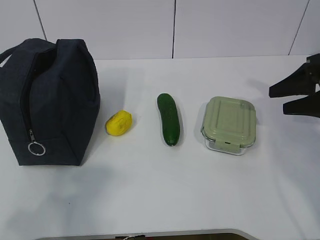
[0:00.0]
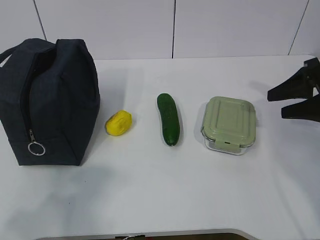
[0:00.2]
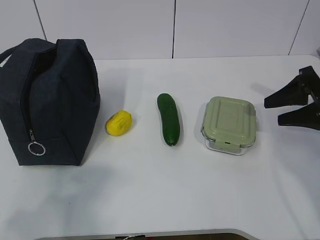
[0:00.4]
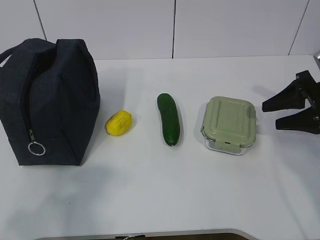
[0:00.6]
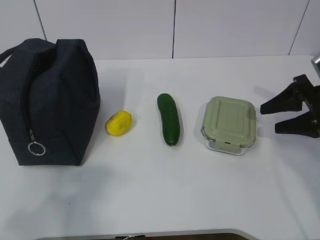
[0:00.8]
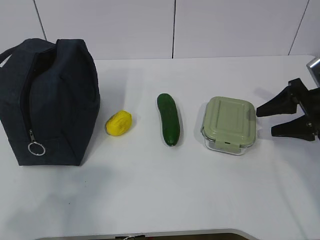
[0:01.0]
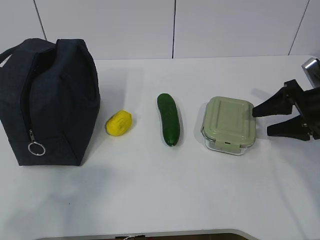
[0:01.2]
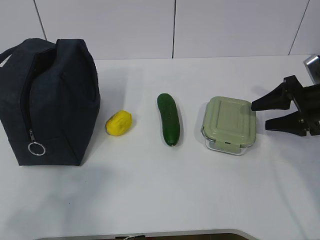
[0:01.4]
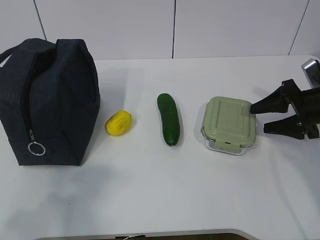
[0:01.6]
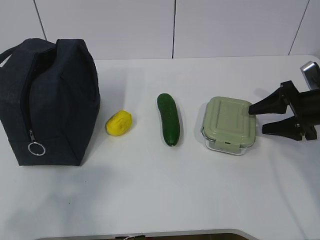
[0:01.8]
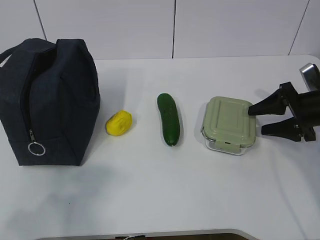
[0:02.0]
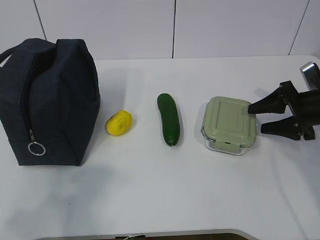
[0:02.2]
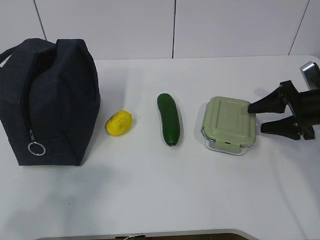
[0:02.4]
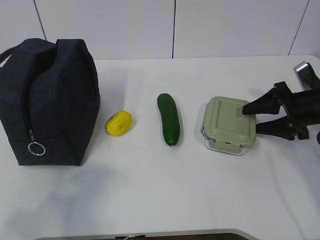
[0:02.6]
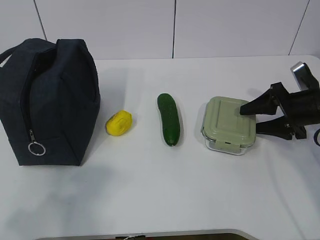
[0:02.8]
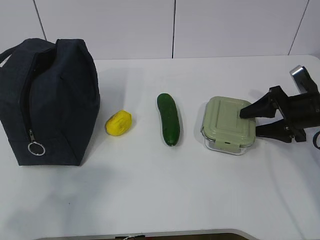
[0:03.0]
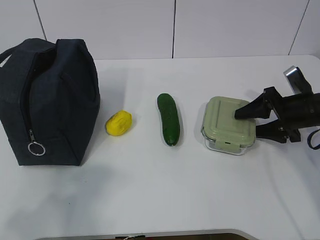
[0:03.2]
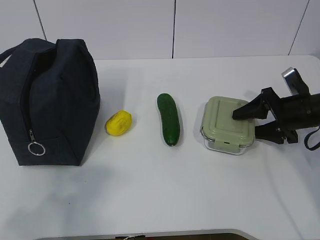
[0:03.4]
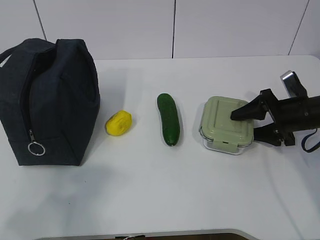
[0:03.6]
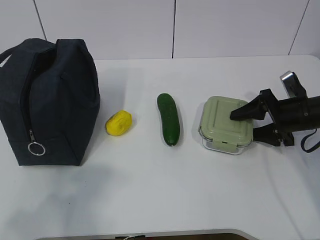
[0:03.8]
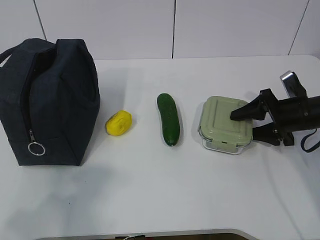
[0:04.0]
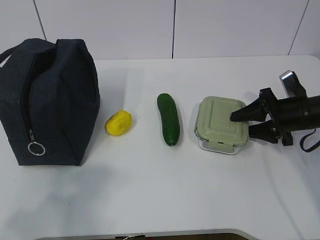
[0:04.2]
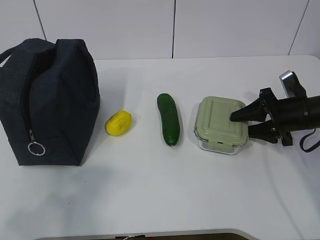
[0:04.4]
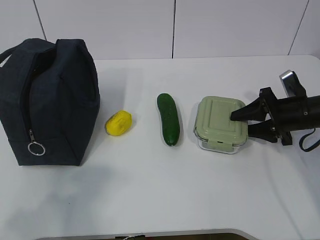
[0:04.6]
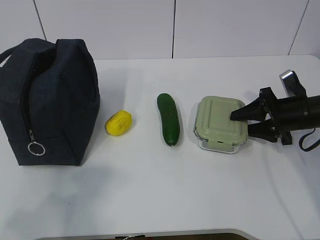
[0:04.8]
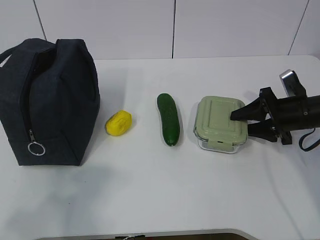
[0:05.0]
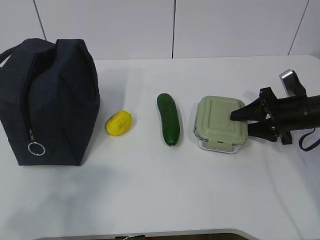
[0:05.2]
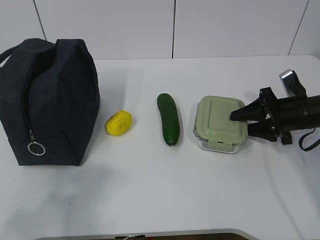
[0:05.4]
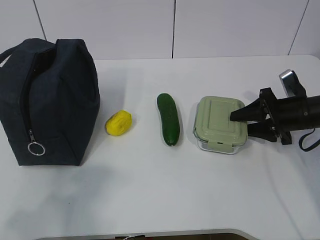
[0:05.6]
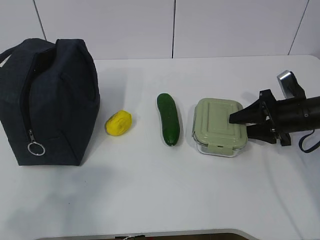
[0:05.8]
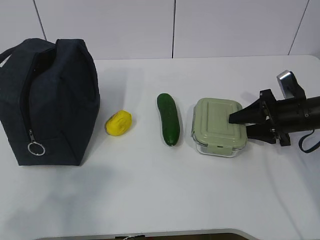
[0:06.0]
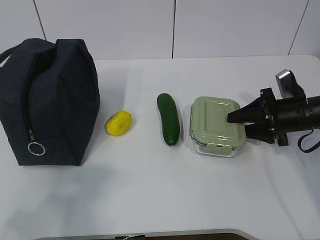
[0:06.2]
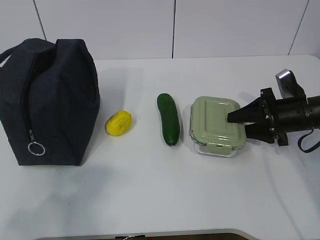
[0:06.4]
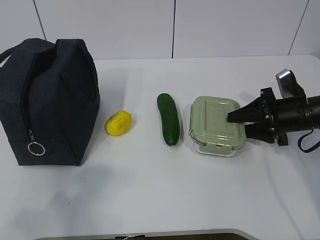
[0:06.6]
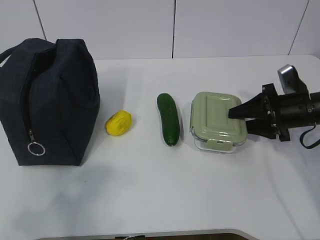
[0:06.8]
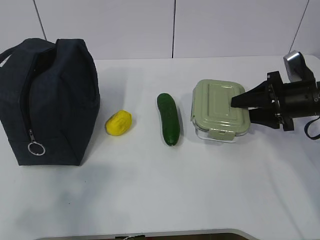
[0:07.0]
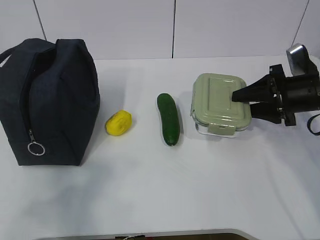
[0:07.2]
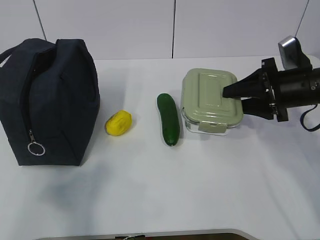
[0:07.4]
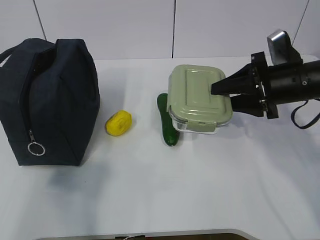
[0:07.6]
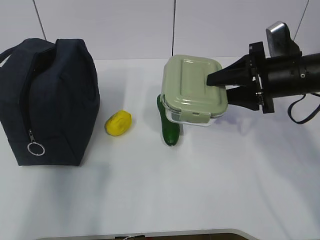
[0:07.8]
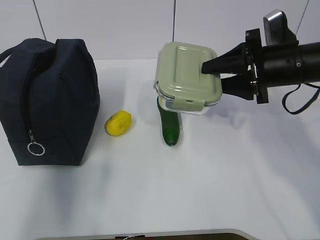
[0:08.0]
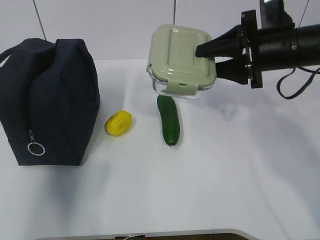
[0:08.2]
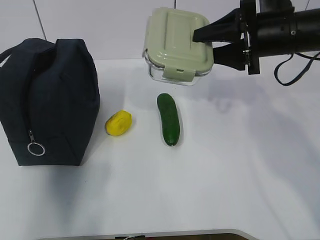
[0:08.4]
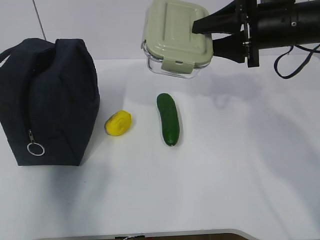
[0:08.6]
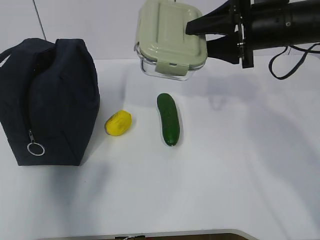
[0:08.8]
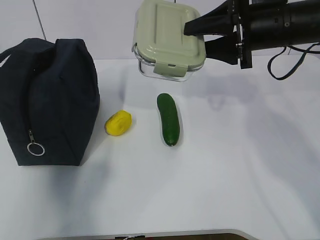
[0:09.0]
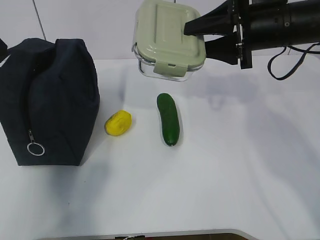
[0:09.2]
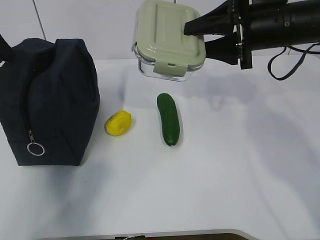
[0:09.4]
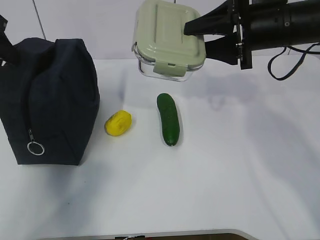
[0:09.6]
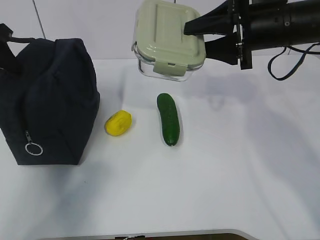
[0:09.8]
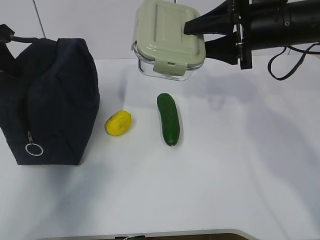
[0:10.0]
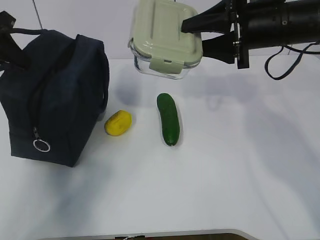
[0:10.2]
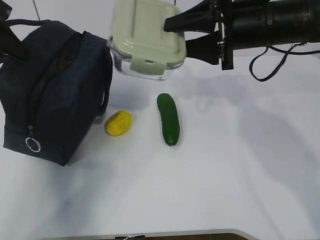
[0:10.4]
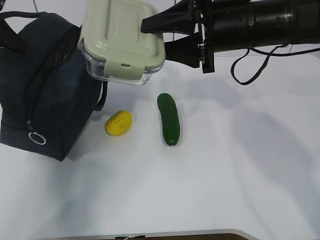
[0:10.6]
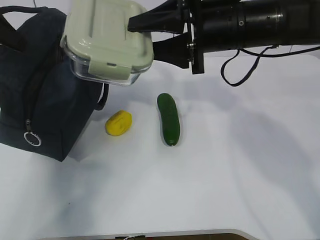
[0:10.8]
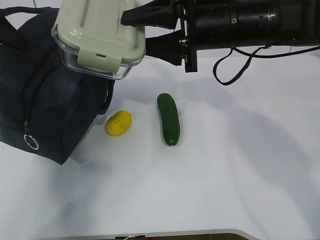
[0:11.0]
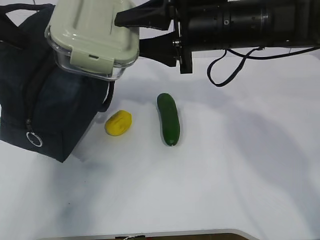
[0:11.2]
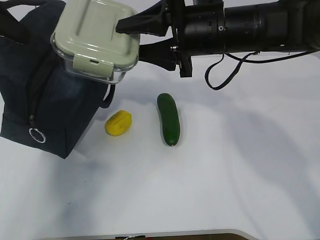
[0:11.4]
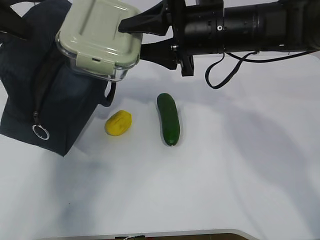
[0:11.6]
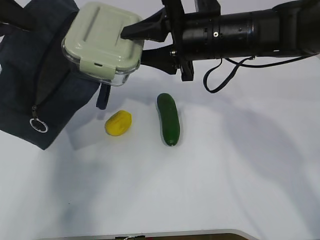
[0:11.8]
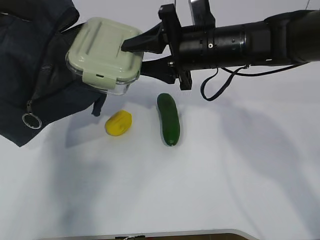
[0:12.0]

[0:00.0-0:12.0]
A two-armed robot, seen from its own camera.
Step, 0:00.0 to 0:04.0: Grab the lunch box with your right hand.
Step, 0:04.2 to 0:08.8: Grab the lunch bag with your left hand.
0:00.0 to 0:01.6: The right gripper goes about 5 cm downward.
0:01.6 to 0:04.4: The grippers make only small movements.
0:04.4 to 0:06.0: Both grippers stay about where they are.
0:06.0 to 0:07.6: The right gripper is displaced upward by about 10 cm, while the left gripper shifts about 5 cm forward.
0:07.6 to 0:09.0: The right gripper heads upward and to the left, covering some 10 cm; the left gripper goes roughly 25 cm forward.
0:09.0 to 0:10.4: The left gripper moves forward, some 5 cm, and closes up.
0:10.4 to 0:12.0: The left gripper is displaced upward by approximately 5 cm; the right gripper travels to the left by roughly 5 cm.

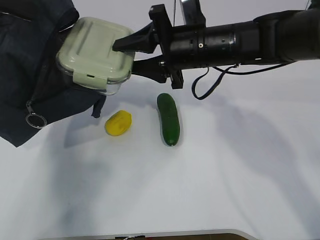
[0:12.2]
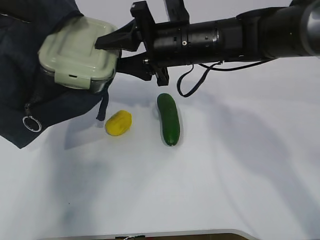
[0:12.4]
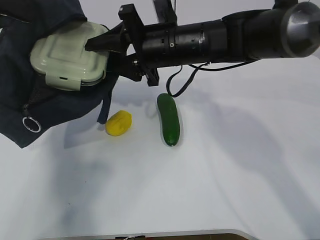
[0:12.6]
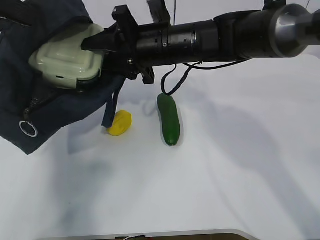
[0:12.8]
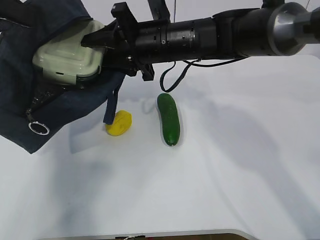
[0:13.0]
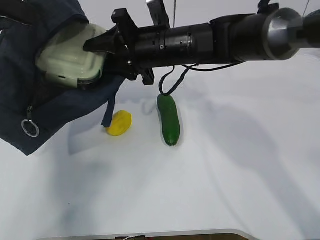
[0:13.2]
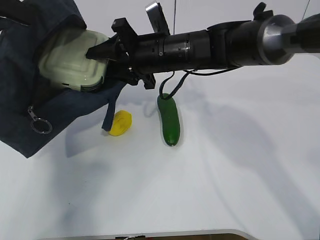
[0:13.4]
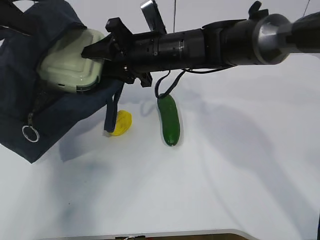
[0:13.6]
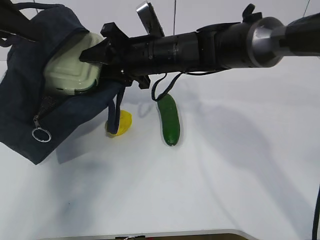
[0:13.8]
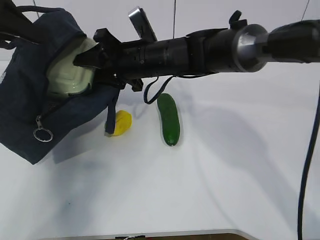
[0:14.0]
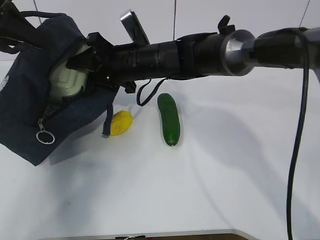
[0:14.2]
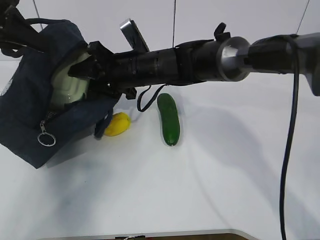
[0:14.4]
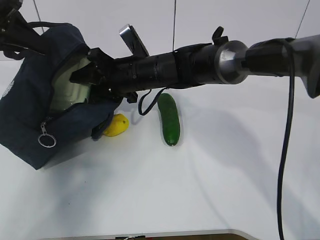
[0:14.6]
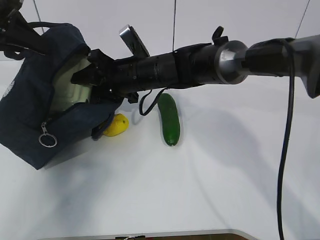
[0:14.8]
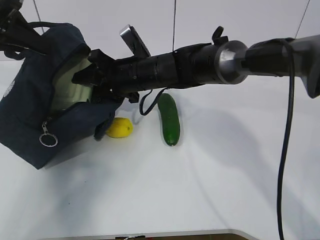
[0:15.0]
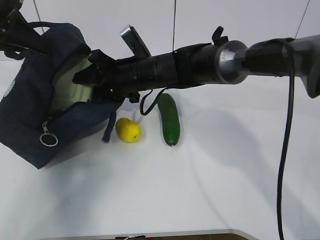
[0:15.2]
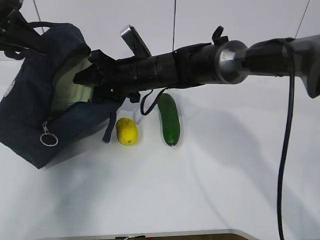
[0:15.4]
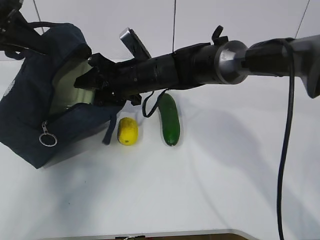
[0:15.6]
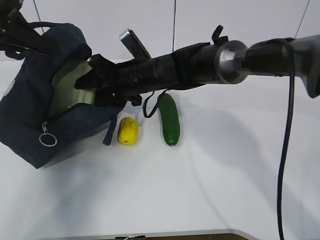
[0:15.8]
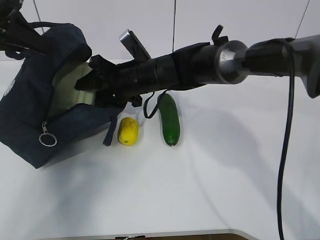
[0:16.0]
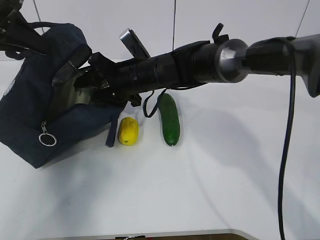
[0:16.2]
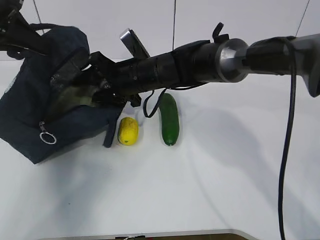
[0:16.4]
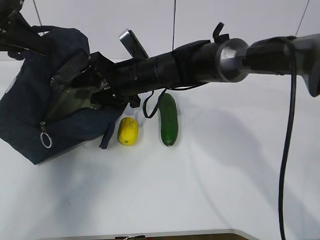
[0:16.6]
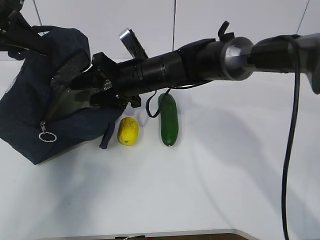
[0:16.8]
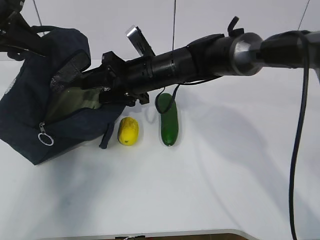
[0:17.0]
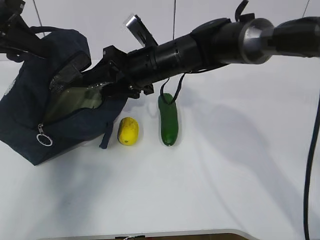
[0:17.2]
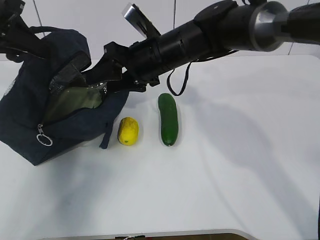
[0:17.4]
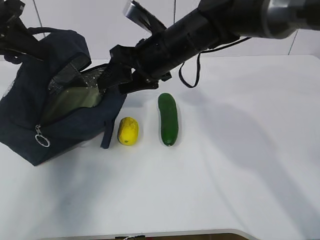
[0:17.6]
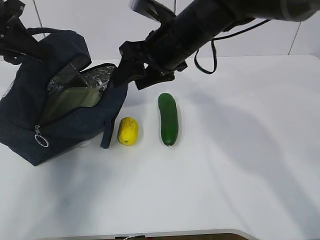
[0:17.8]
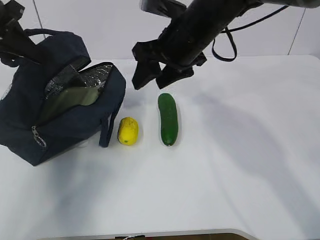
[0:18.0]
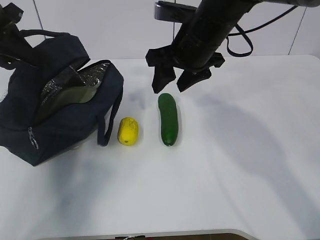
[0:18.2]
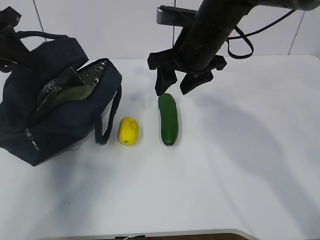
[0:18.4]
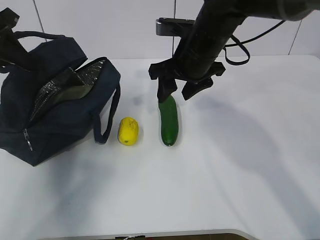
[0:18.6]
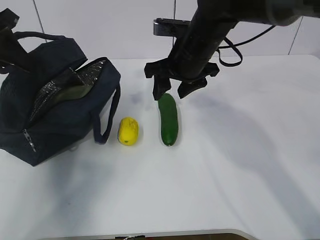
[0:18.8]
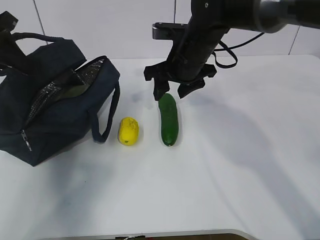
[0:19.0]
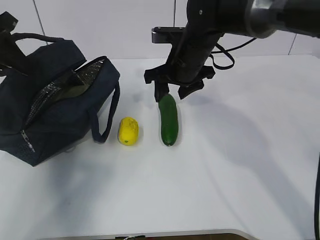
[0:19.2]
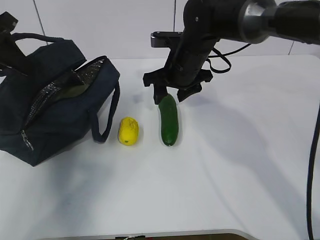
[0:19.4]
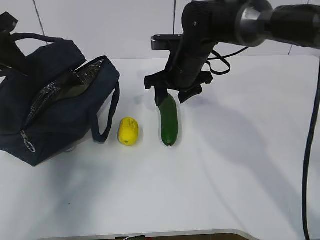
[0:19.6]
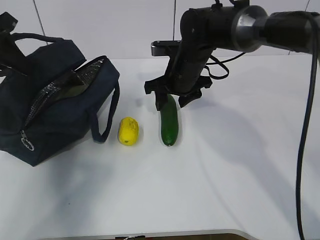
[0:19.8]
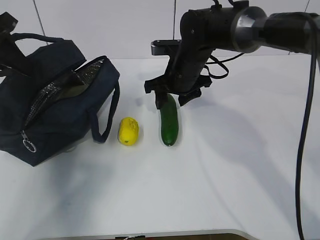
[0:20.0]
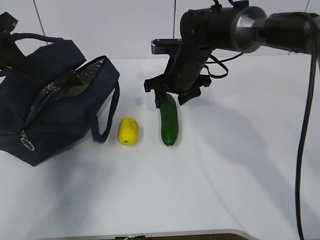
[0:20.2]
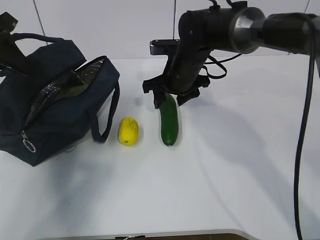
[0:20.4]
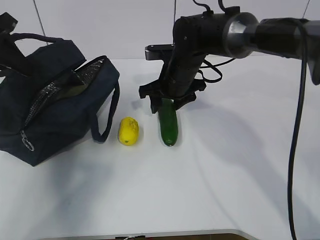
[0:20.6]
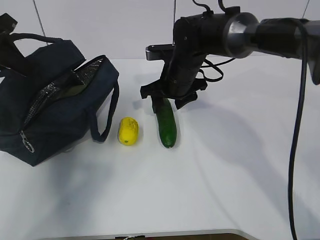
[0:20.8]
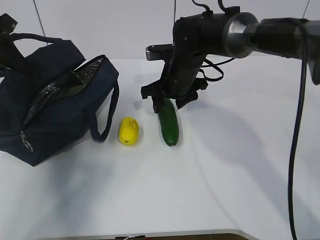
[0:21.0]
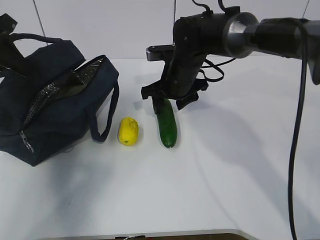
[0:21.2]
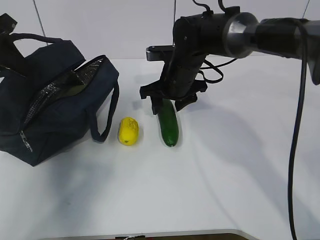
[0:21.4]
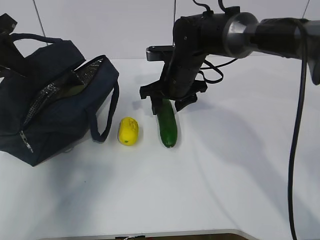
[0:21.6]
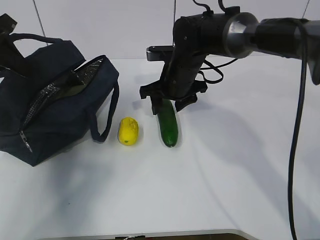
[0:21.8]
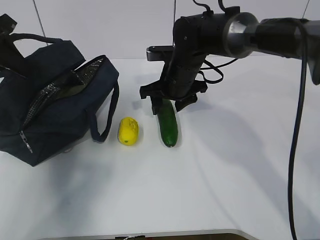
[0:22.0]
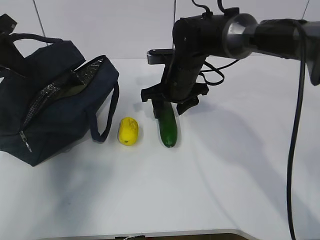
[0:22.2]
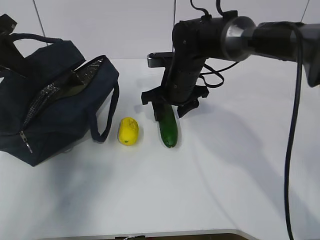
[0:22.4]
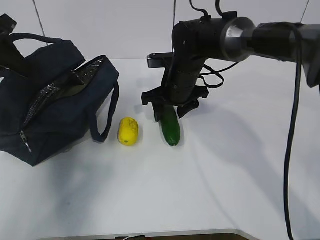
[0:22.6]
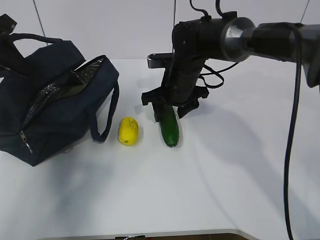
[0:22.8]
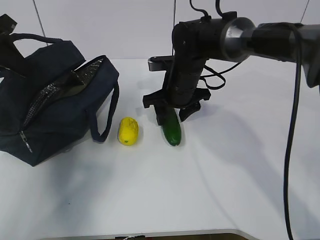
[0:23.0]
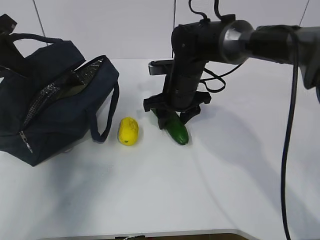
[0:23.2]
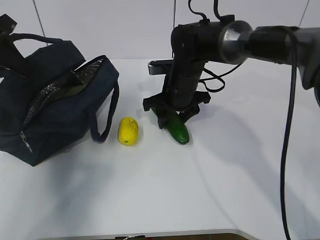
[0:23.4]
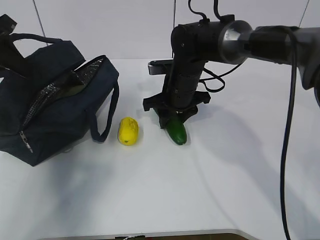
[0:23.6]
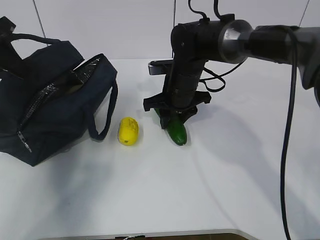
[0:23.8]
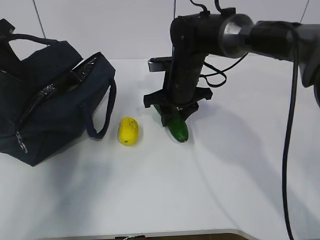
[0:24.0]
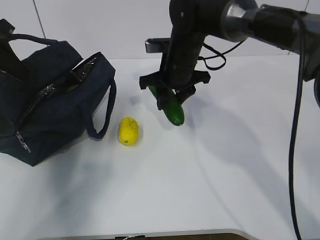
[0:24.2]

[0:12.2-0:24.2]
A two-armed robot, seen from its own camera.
Step, 0:13.2 to 0:18.8: Grab the cucumber with your right hand.
Step, 0:19.2 to 0:21.0: Place it into the bag with your right hand.
0:12.2 to 0:13.8: The right gripper travels to the left by approximately 5 cm.
0:13.8 to 0:15.2: The right gripper shifts by roughly 5 cm.
0:15.2 to 0:16.6: There are only small adjustments of the grippers.
0:16.6 to 0:18.2: The right gripper heads to the right and upward, covering approximately 15 cm.
0:18.2 to 0:19.8: The right gripper moves downward and forward, some 10 cm.
0:19.8 to 0:21.2: Both grippers stay put.
0:21.2 to 0:22.6: The two grippers keep their place.
0:22.6 to 0:24.2: The grippers stay close to where they were, moving slightly.
